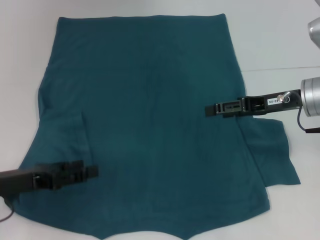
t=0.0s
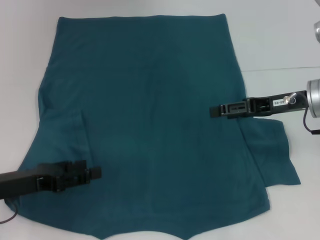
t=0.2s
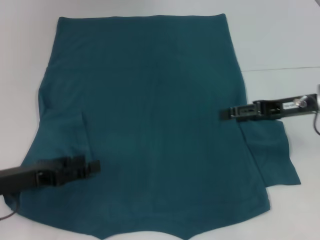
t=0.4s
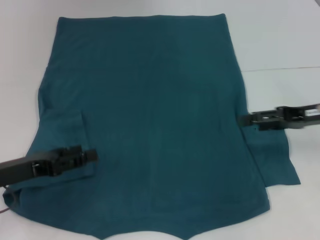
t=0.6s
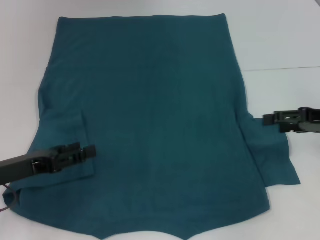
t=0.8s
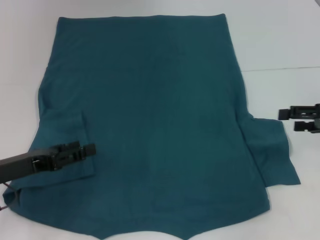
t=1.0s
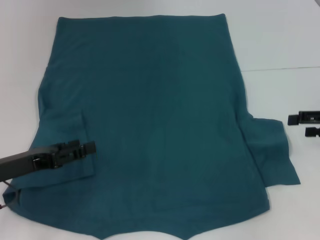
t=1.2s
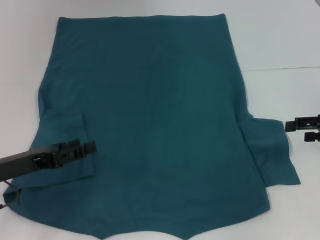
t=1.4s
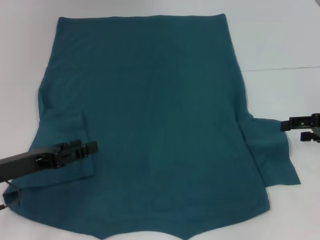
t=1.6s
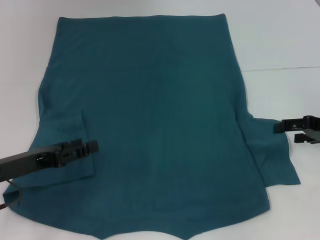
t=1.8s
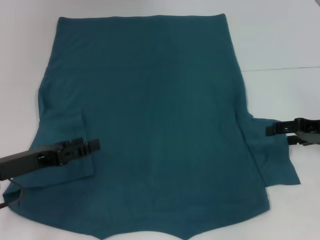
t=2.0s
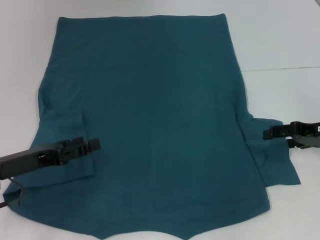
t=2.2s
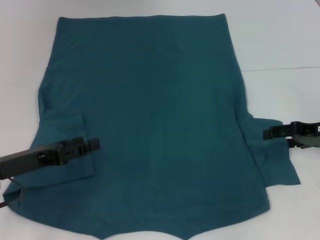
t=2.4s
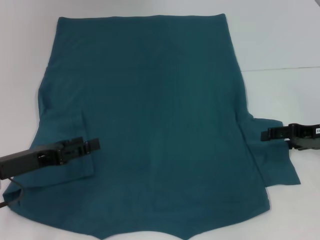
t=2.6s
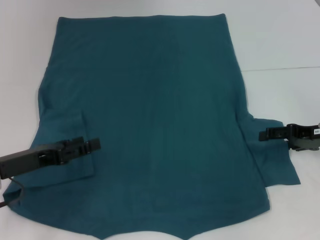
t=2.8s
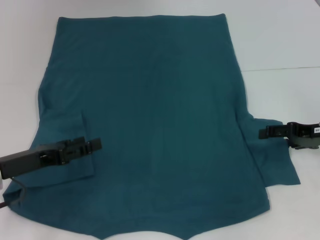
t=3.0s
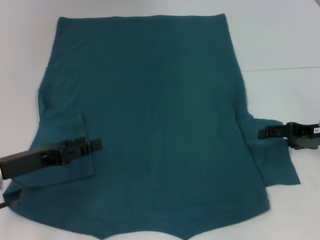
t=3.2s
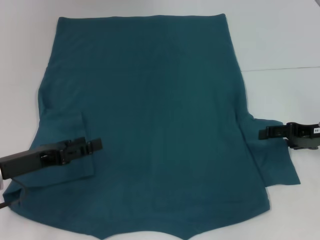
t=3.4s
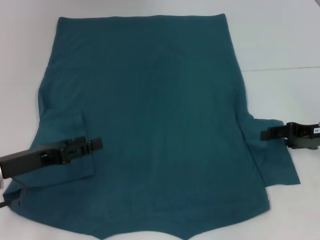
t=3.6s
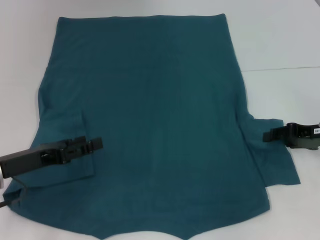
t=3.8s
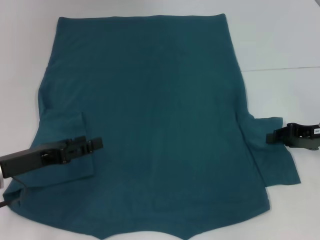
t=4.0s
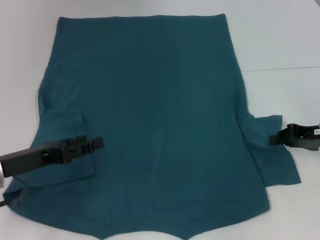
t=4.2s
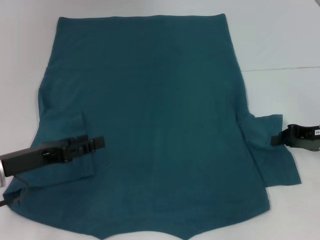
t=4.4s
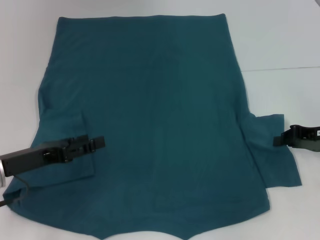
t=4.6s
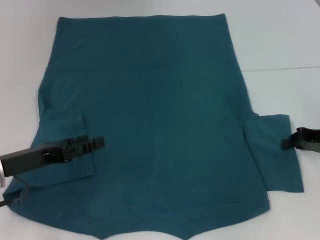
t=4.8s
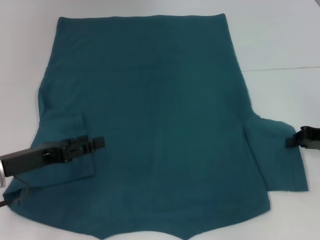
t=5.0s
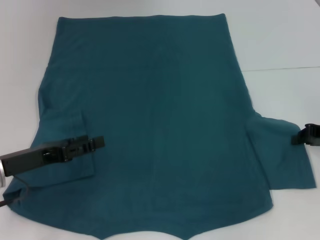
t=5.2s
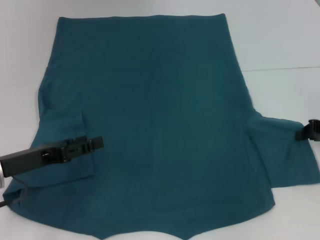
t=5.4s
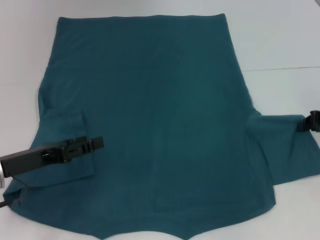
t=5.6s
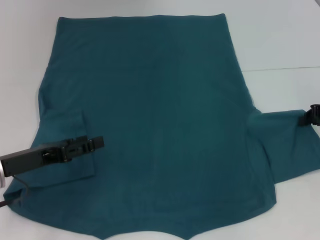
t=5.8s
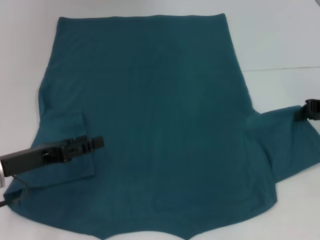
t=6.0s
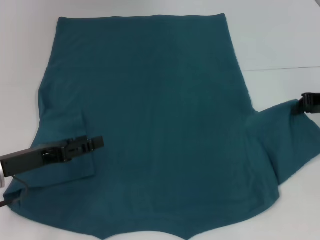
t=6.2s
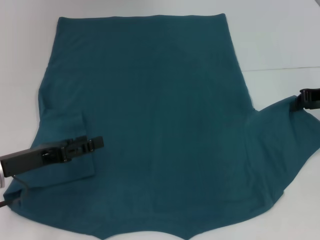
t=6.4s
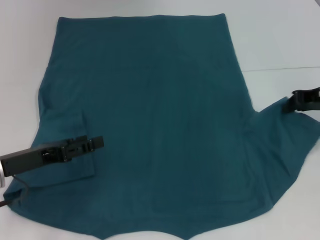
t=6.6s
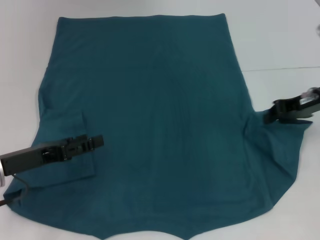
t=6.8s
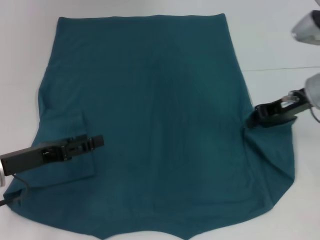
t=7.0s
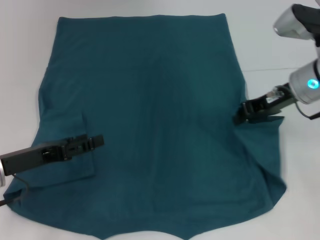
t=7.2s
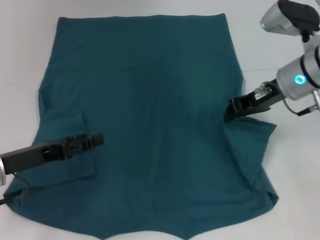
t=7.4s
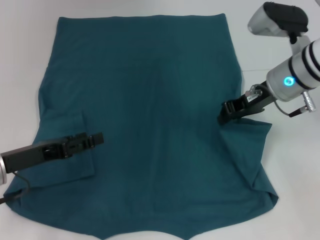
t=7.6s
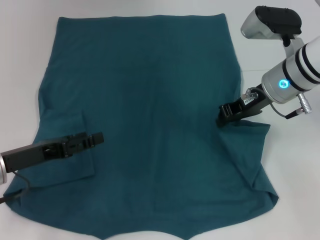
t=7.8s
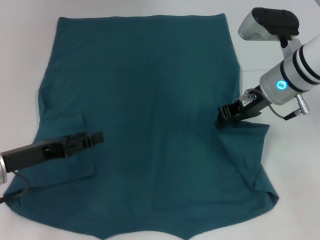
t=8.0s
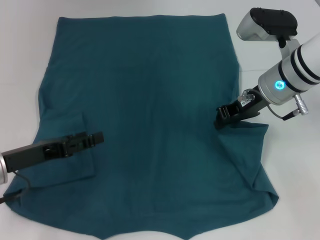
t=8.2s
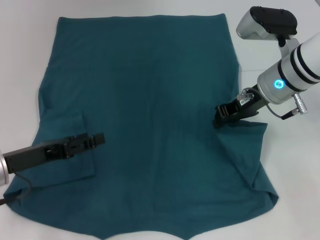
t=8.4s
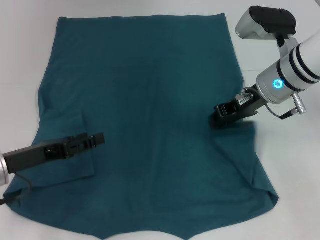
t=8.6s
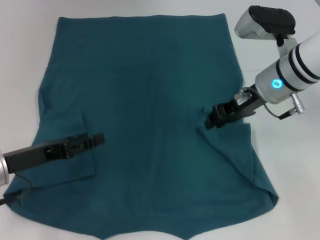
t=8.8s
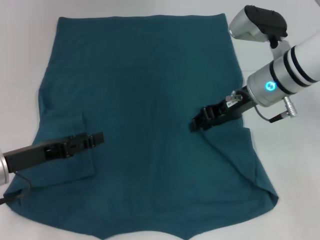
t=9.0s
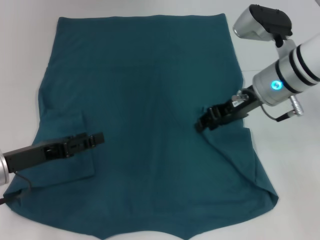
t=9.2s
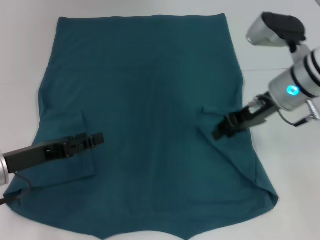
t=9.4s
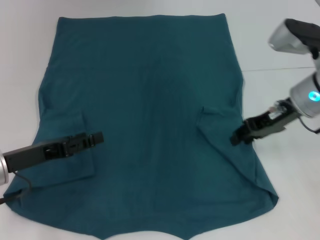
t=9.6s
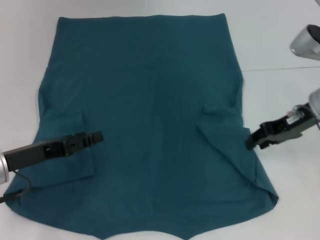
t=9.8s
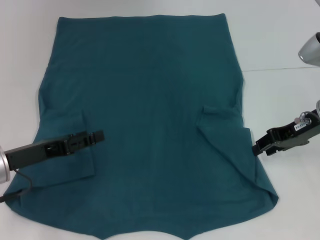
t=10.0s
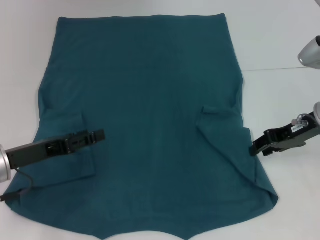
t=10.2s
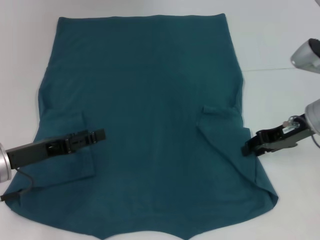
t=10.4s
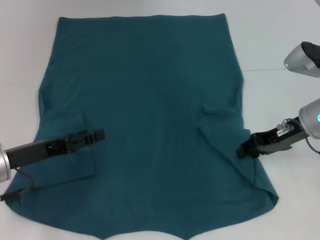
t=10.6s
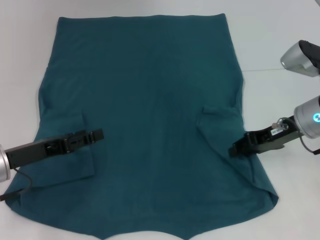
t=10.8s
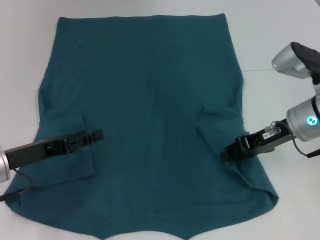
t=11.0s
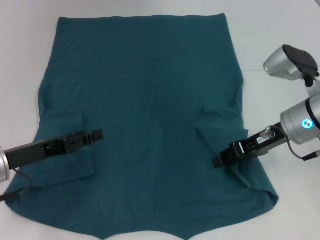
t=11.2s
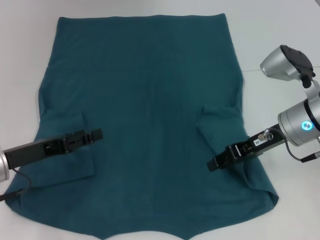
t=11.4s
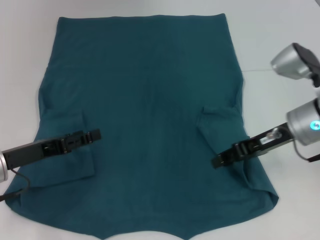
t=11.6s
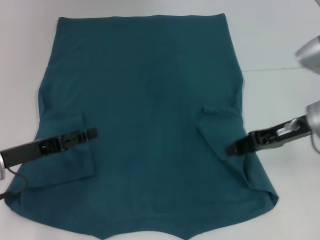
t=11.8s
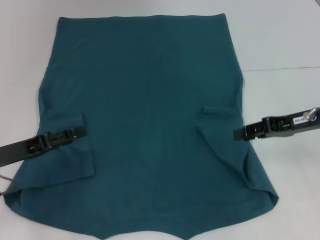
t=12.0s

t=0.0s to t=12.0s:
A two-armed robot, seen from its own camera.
Step, t=0.0s to t=11.4s: Fold the bottom right sleeve to the right.
t=0.0s to t=1.6s: The right gripper heads to the right, covering about 10 cm.
t=1.6s to t=3.0s: The grippers move only a little.
t=3.0s to t=4.4s: The right gripper closes up.
t=4.4s to t=6.0s: The right gripper shifts by approximately 5 cm.
t=6.0s to t=7.6s: The right gripper shifts about 15 cm to the left.
t=7.6s to t=9.0s: The grippers make only small movements.
t=9.0s to t=10.4s: The right gripper goes about 10 cm to the right.

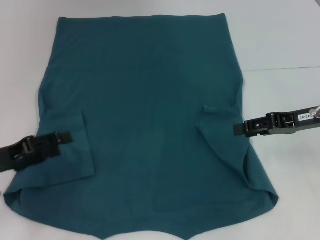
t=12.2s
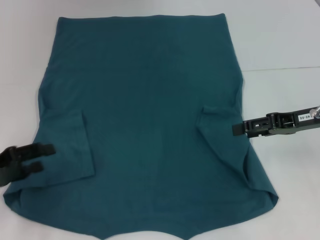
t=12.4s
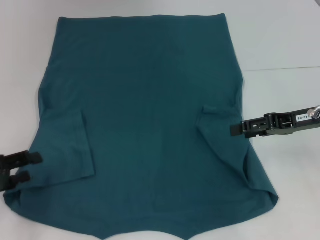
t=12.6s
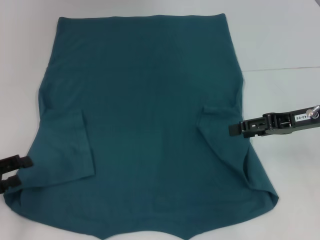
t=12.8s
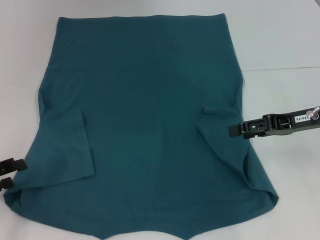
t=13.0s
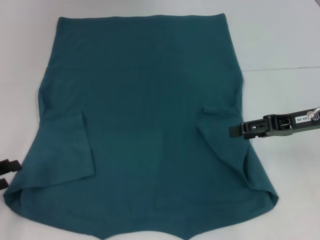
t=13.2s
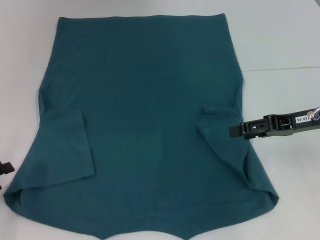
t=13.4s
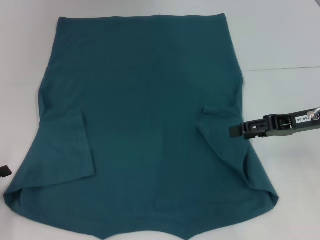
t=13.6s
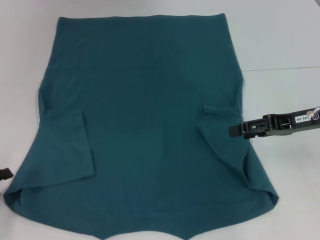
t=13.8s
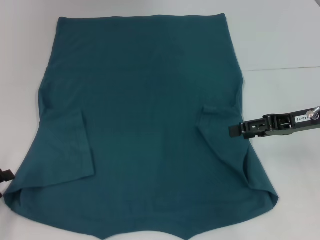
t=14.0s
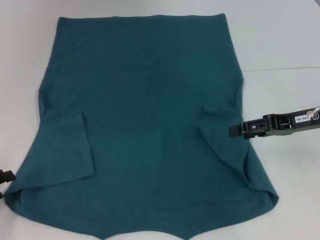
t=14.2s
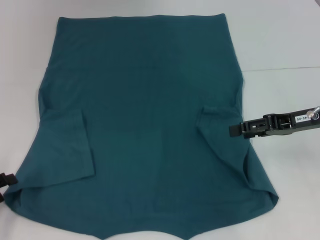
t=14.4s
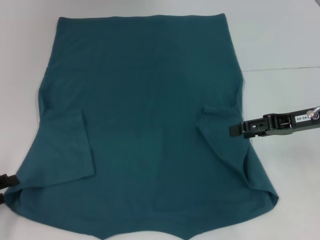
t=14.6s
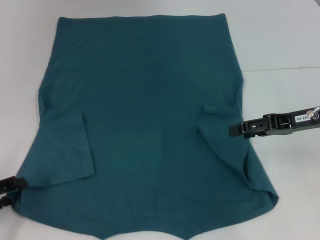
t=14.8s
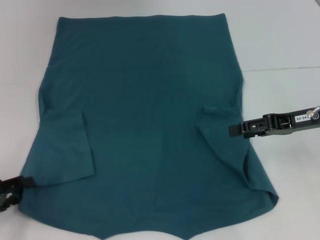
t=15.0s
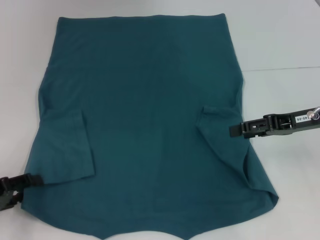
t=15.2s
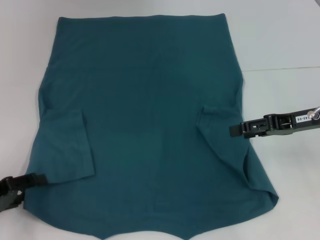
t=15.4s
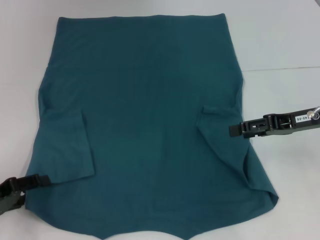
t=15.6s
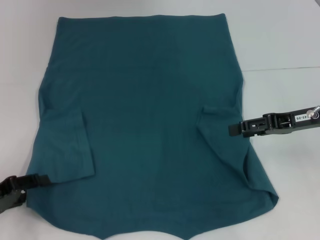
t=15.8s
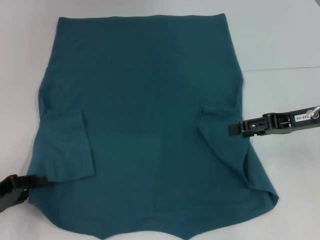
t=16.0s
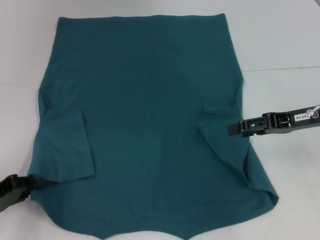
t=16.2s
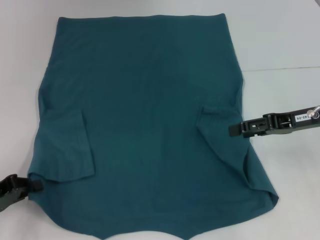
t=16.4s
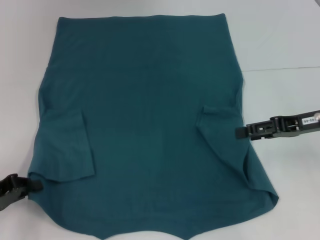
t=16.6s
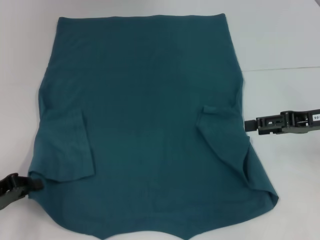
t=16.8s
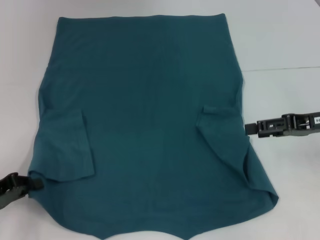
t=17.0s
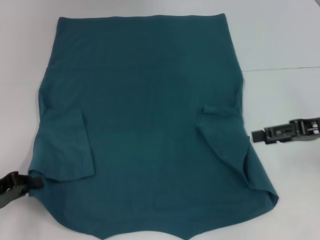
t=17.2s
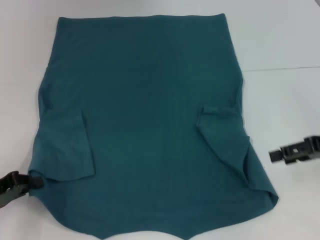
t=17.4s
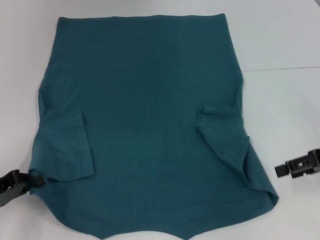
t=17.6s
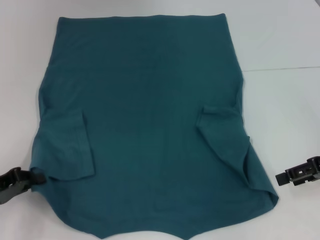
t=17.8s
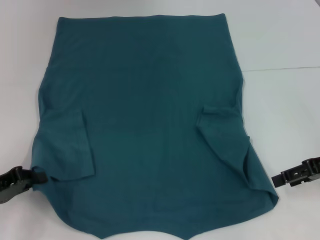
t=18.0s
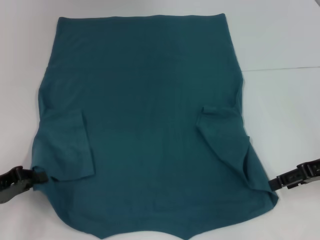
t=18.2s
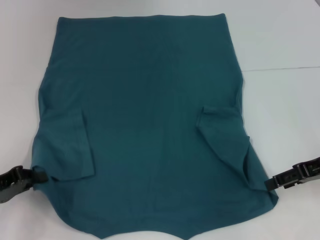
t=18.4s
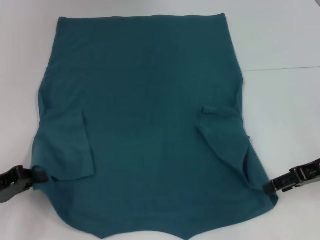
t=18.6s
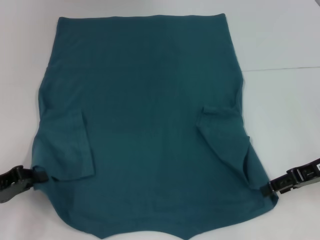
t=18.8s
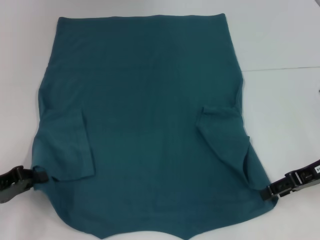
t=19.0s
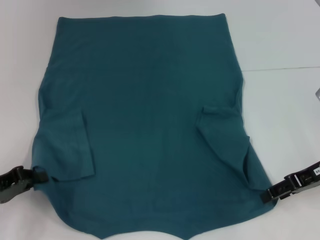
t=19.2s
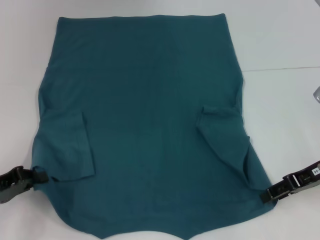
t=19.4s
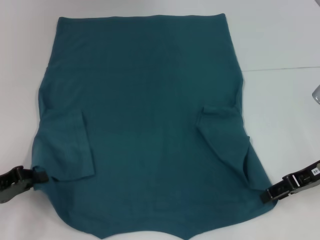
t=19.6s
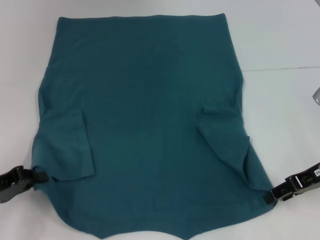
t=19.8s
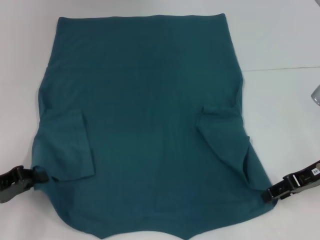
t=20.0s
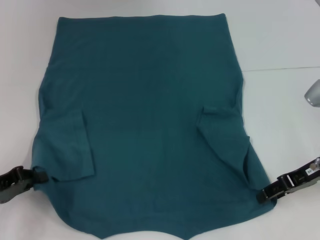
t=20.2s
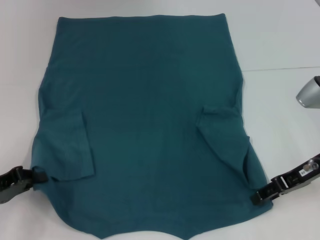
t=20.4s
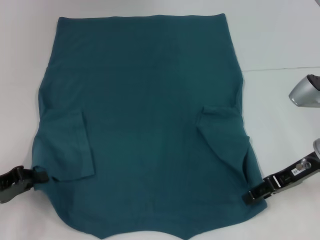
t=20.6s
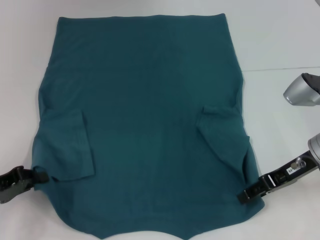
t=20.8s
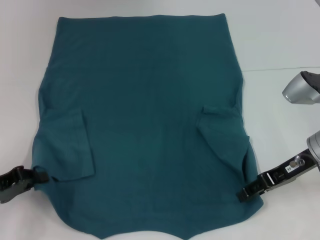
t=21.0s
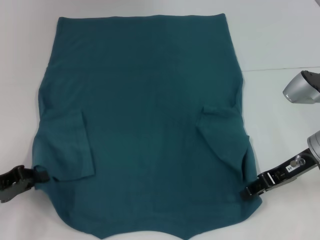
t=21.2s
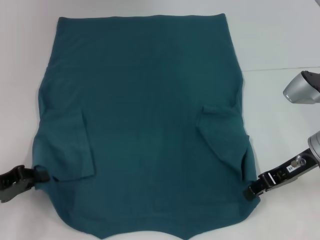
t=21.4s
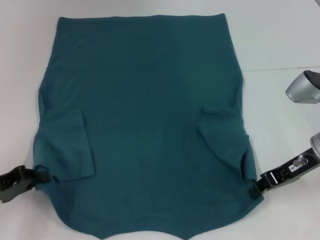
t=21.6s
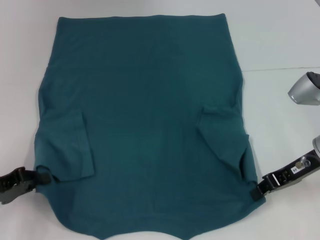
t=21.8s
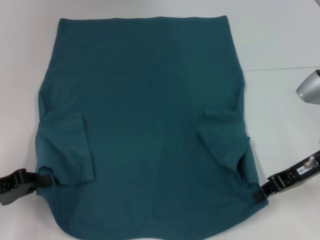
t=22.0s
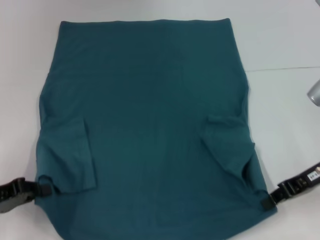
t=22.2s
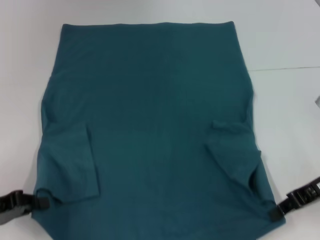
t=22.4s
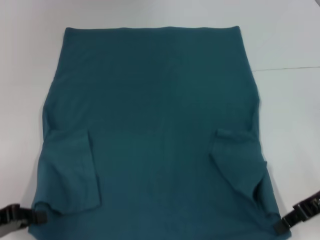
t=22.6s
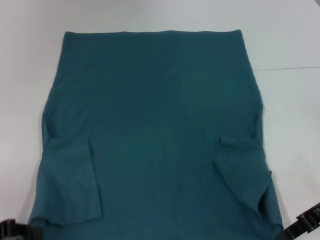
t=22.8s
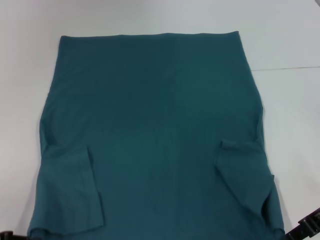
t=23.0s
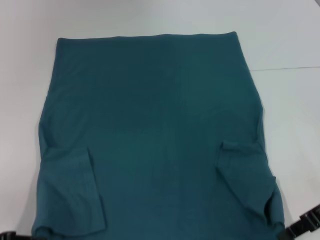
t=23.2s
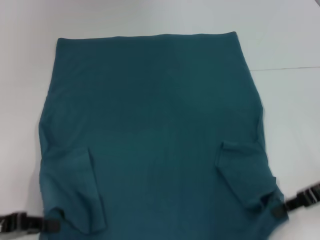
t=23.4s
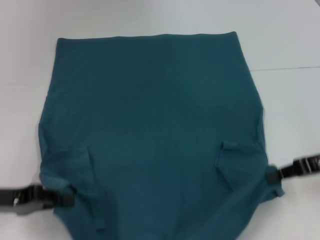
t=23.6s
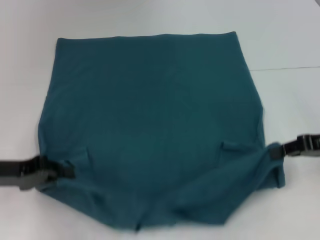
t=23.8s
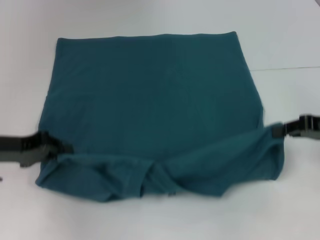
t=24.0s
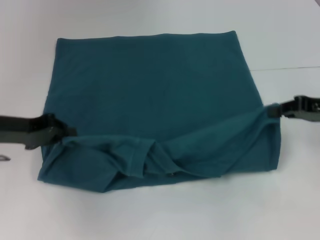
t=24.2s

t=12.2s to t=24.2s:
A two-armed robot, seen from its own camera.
Step, t=12.2s to t=16.4s: Grab the bottom left corner with your left hand.
Step, t=16.6s to t=21.6s: Grab the bottom right corner with your right hand.
t=12.2s to t=13.8s: The left gripper moves to the left, about 5 cm.
t=13.8s to t=15.2s: The grippers move only a little.
t=15.2s to t=16.6s: The left gripper closes up.
t=16.6s to t=18.2s: The grippers make only small movements.
t=18.2s to t=19.8s: The grippers move only a little.
t=19.8s to t=21.2s: The grippers stay close to where they were, moving slightly.
t=21.2s to t=22.6s: The right gripper ends up approximately 5 cm from where it was, and closes.
t=22.6s to t=24.2s: The right gripper changes place by roughly 5 cm. The left gripper is displaced forward and upward by roughly 15 cm.
